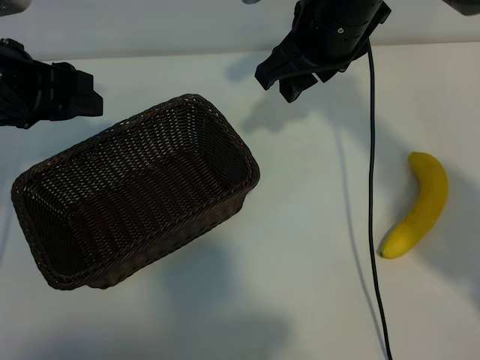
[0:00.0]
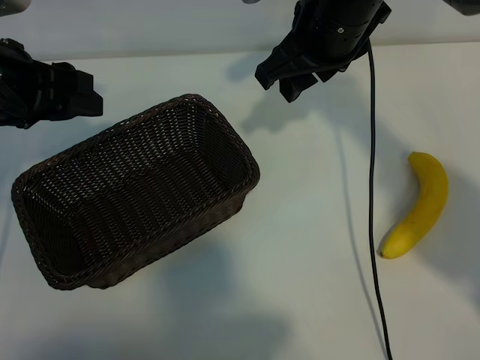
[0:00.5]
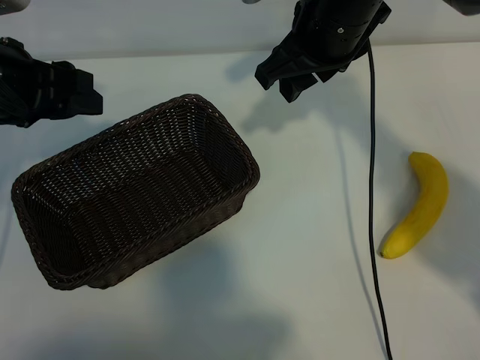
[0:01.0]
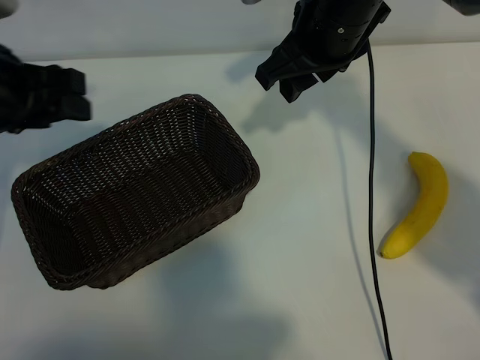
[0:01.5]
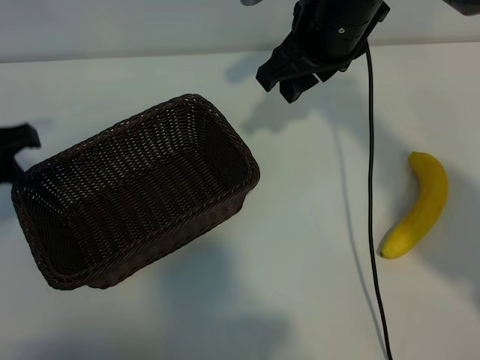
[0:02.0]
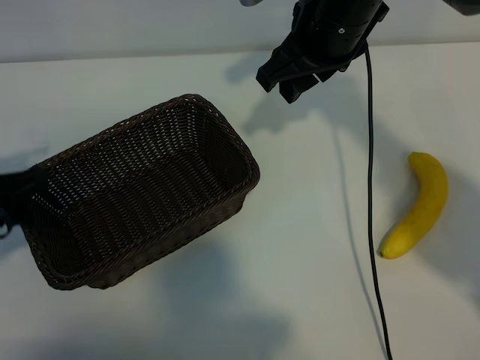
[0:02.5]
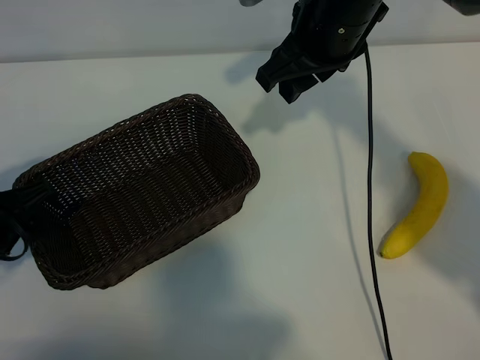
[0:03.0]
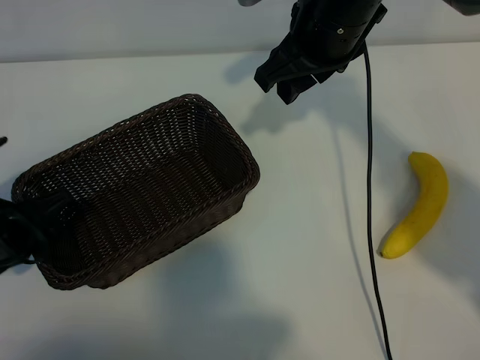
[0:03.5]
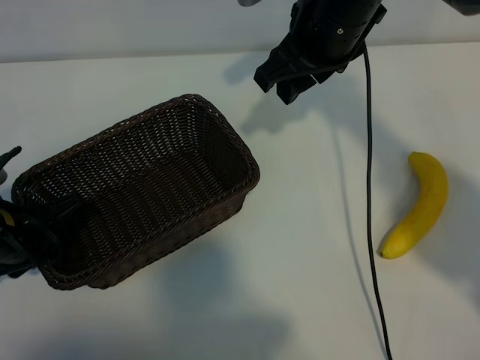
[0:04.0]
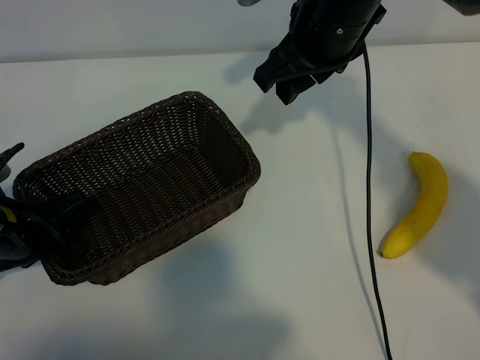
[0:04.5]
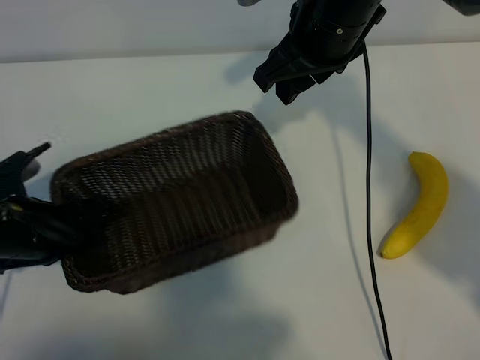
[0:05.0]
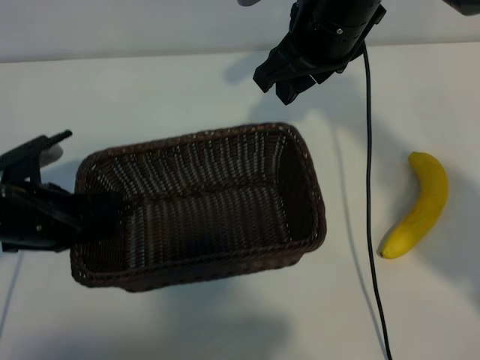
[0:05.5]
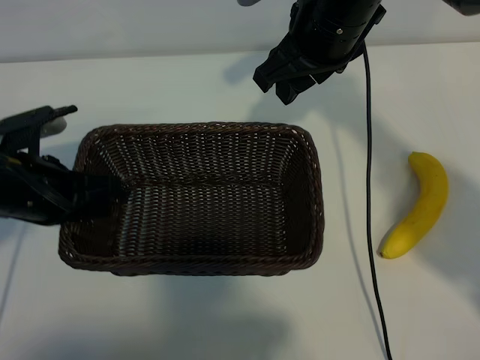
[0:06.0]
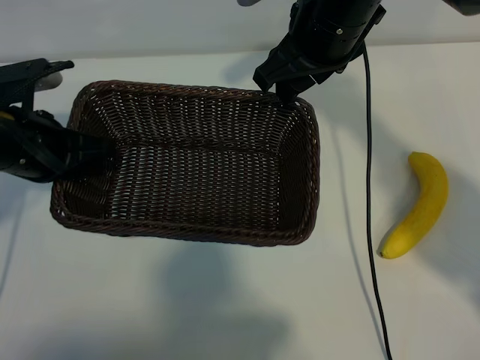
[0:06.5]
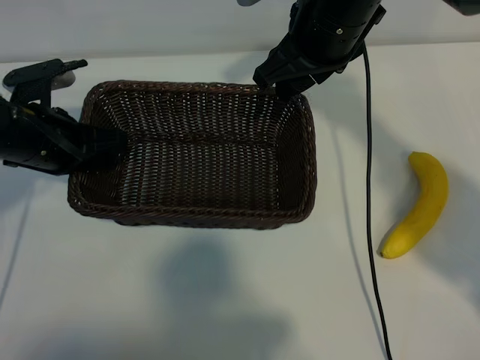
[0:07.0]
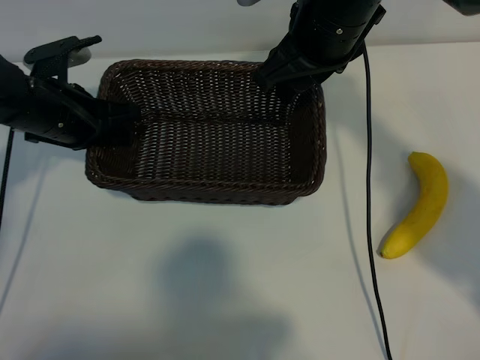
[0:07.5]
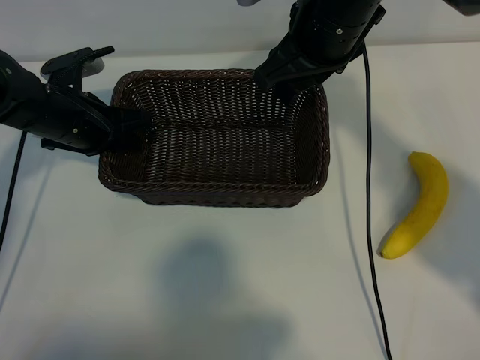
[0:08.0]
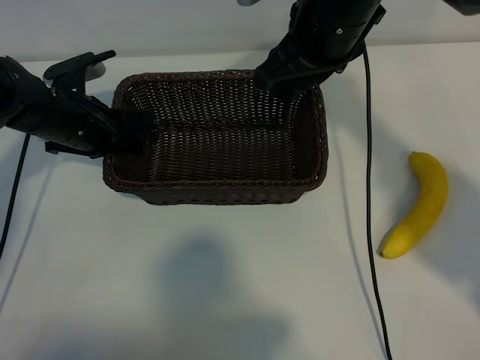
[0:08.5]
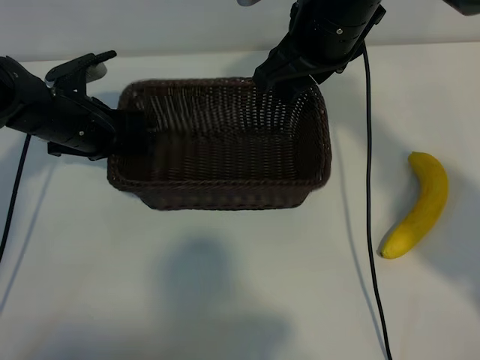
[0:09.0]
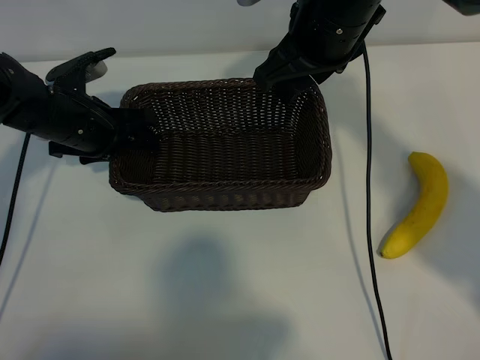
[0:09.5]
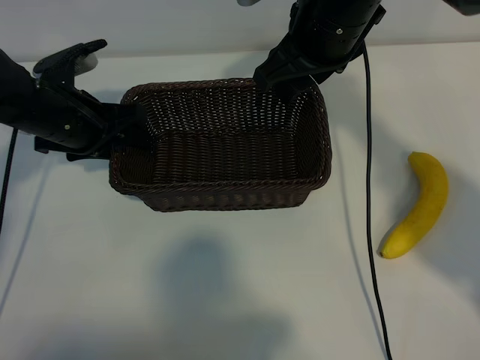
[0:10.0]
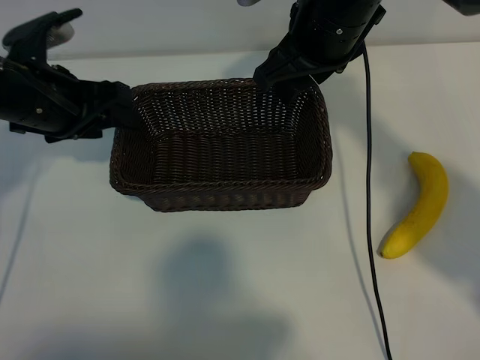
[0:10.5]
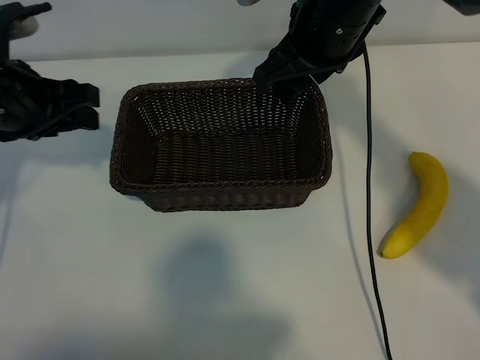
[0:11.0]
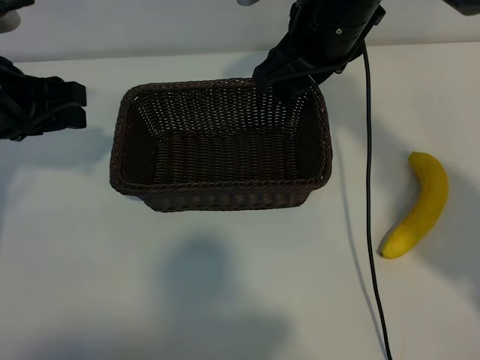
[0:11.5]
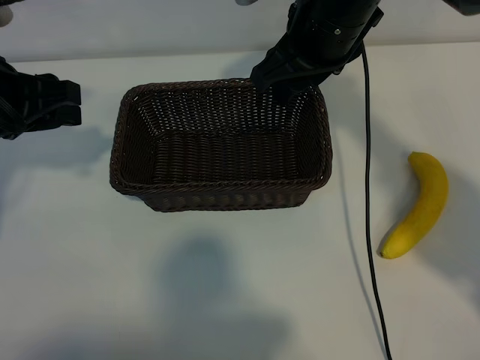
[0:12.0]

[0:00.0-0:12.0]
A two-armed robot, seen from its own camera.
Task of the whole recording: pick up the banana and put it into the basket.
Step, 0:01.0 to 0:04.5: Grasp the basket with the left gripper.
Step, 0:05.0 to 0:10.5: Place the basket in the center of the table with the left gripper.

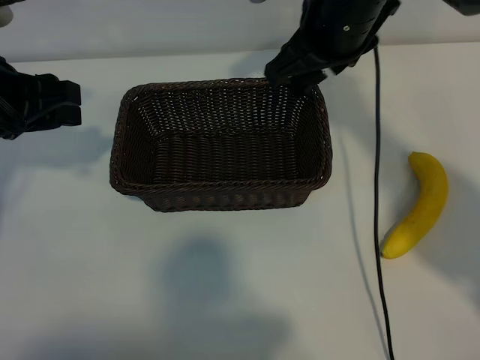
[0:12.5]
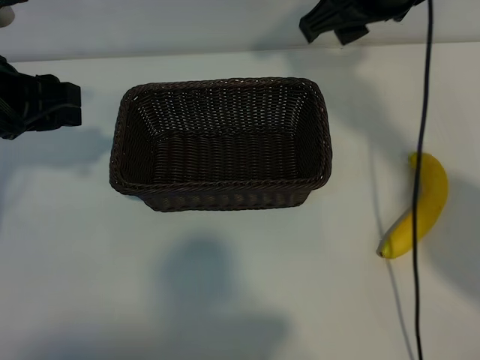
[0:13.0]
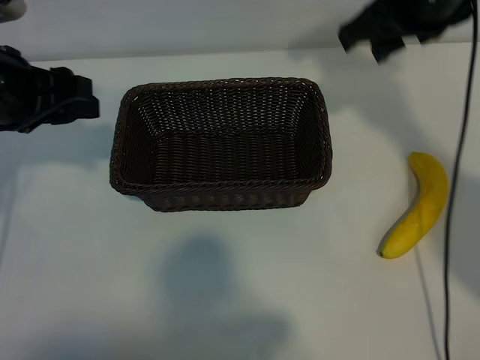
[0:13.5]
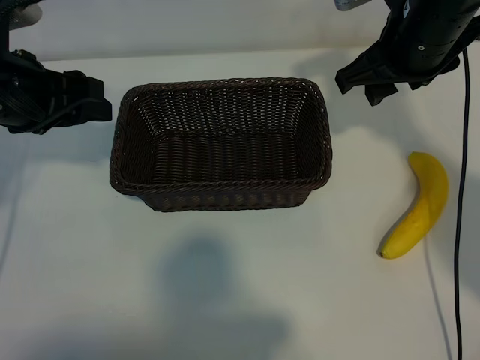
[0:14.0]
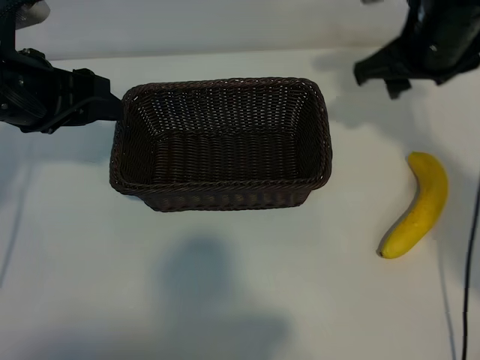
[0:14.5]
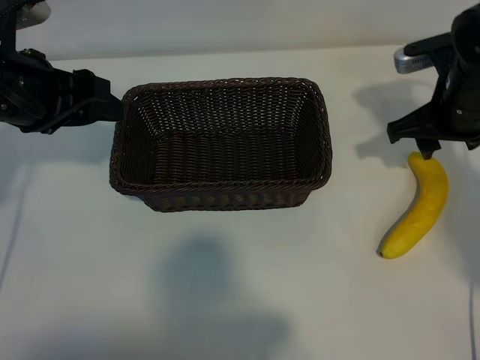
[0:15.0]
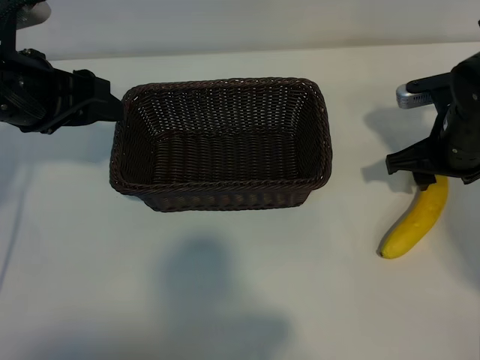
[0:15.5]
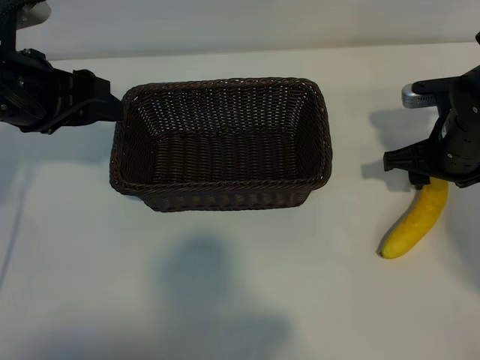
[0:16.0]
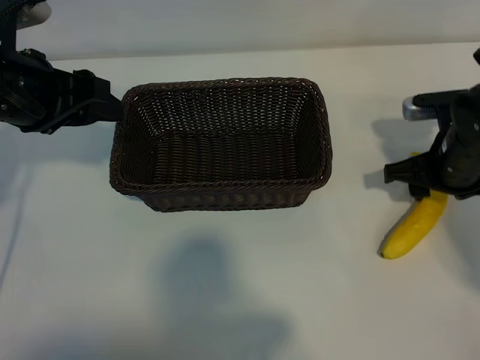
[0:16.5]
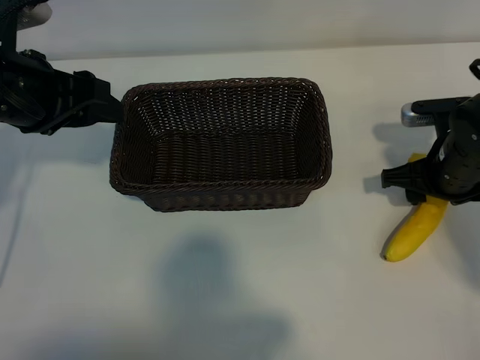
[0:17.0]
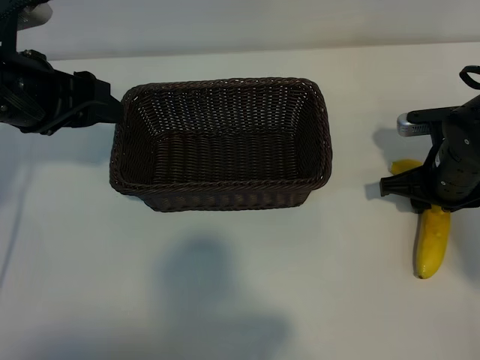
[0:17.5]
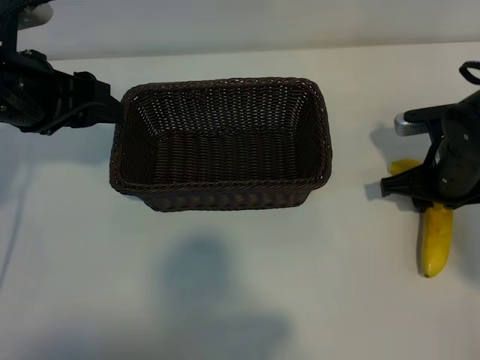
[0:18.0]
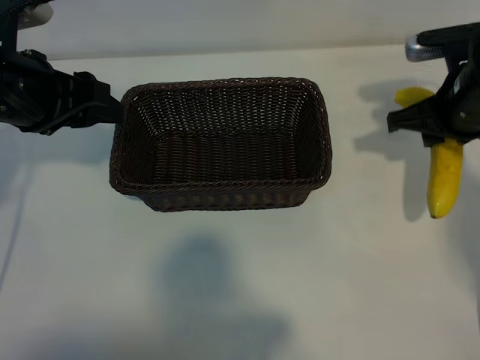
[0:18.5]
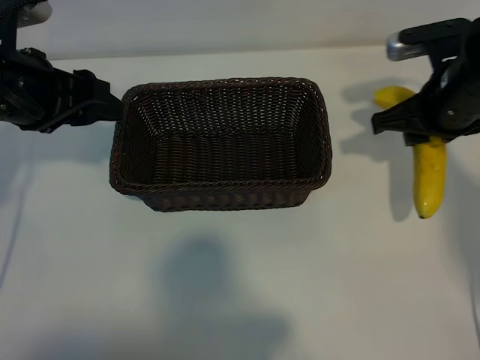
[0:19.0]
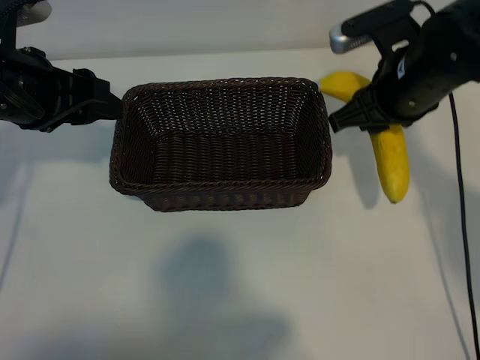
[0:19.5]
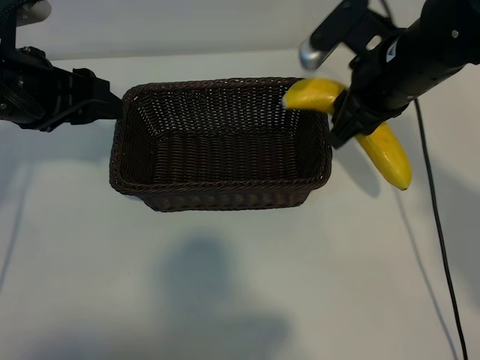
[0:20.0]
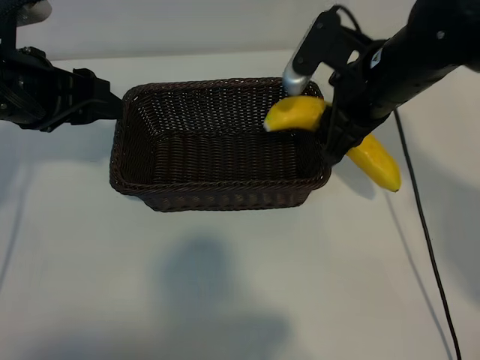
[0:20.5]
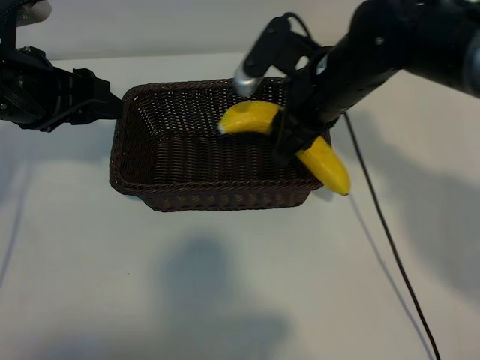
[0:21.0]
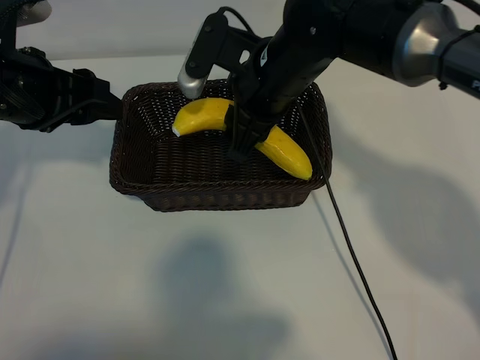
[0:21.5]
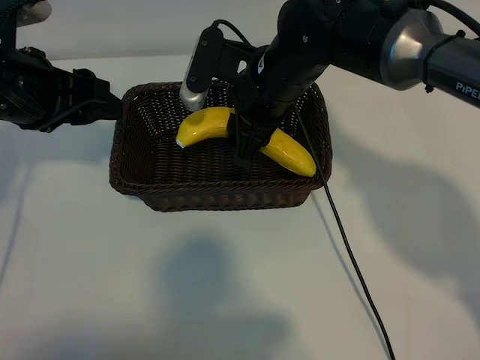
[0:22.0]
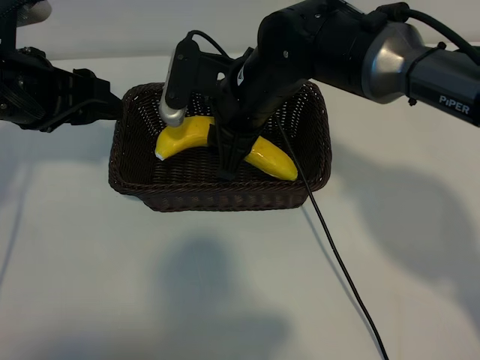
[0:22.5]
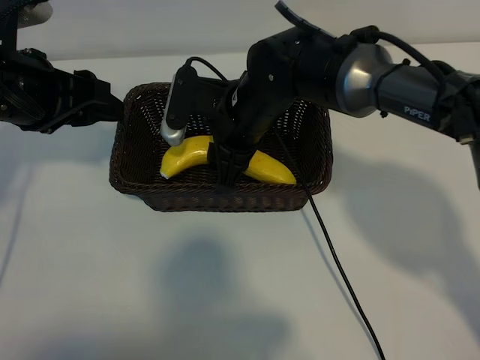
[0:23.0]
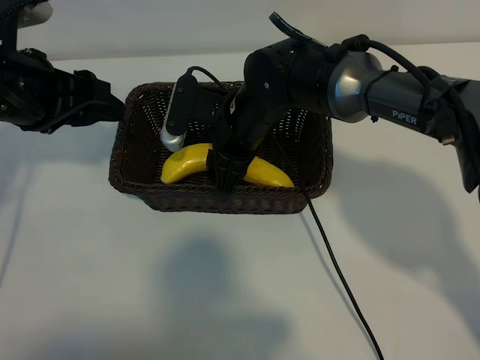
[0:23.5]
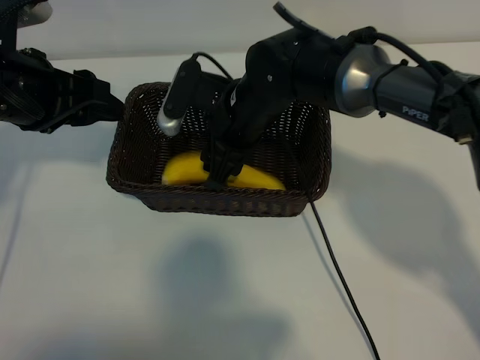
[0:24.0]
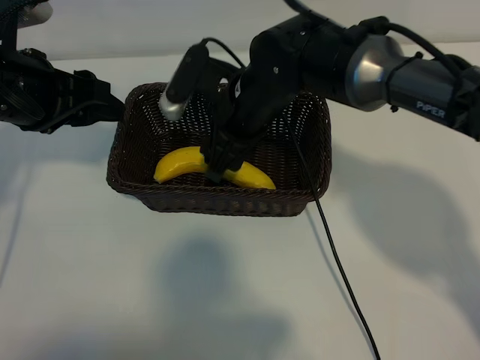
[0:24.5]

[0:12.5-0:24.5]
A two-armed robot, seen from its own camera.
Task of the whole recording: pick up the banana and put it into the basket.
Step, 0:12.5 to 0:17.5: Grasp the banana with right gripper.
